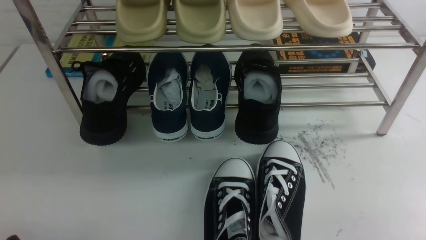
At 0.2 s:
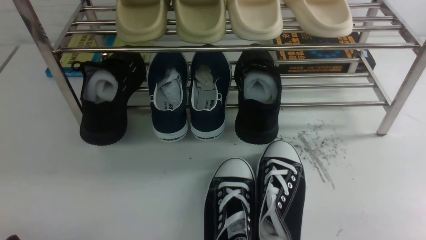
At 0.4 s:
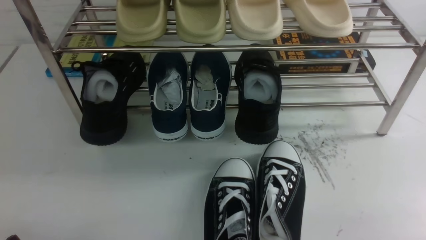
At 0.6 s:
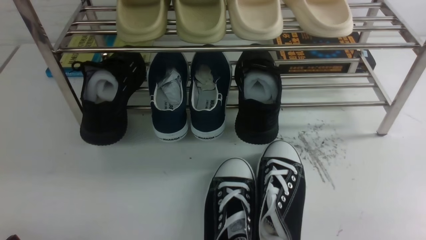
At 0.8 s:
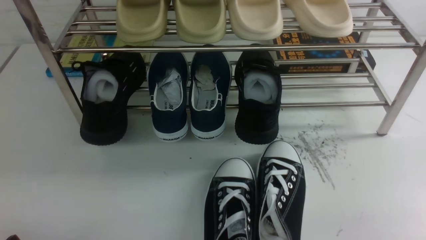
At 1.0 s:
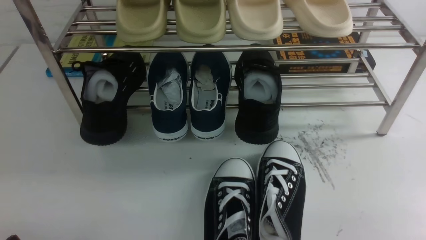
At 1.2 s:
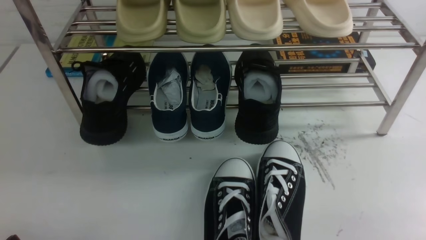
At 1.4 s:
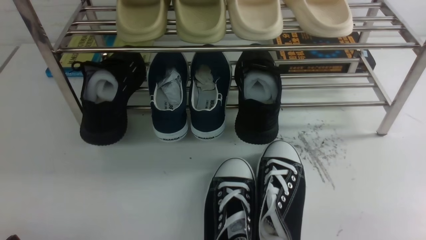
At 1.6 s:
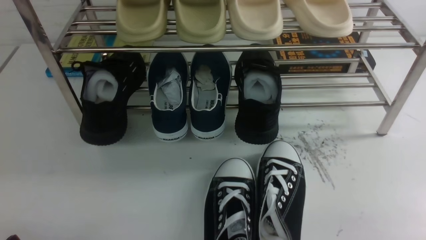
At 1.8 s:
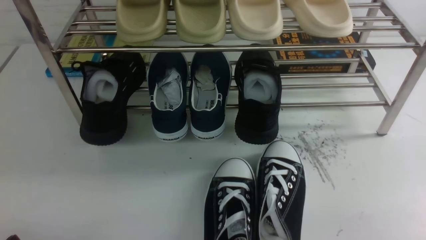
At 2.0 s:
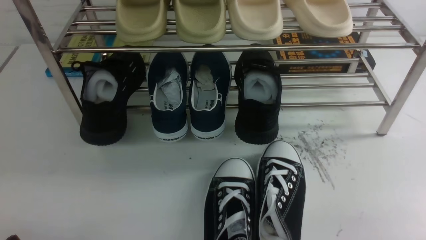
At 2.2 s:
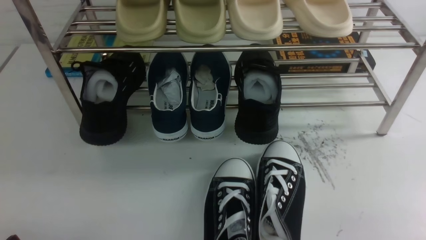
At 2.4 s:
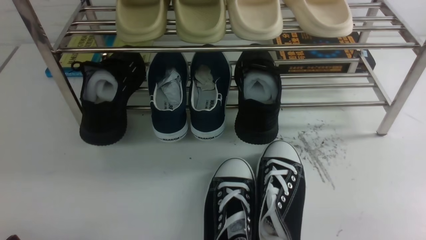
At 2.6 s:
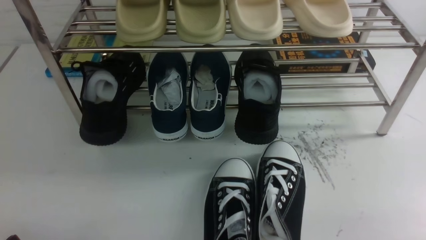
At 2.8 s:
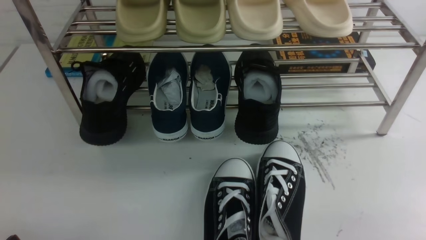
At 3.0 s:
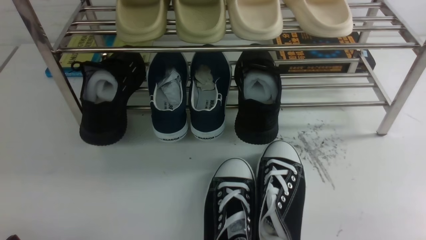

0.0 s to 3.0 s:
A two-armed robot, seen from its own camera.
0.0 to 3.0 s: The two grippers keep their place.

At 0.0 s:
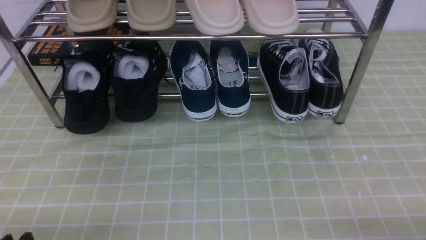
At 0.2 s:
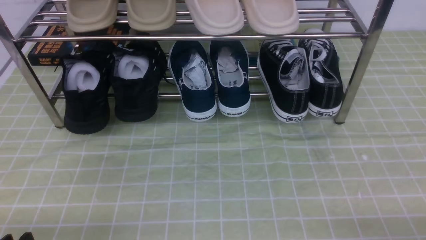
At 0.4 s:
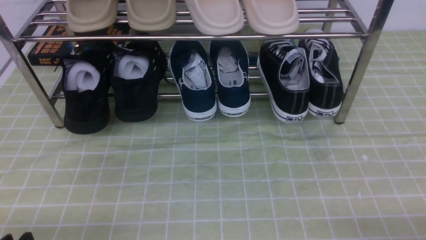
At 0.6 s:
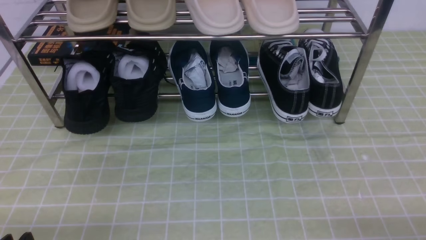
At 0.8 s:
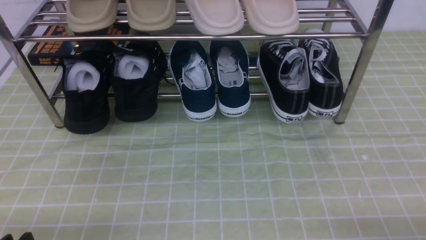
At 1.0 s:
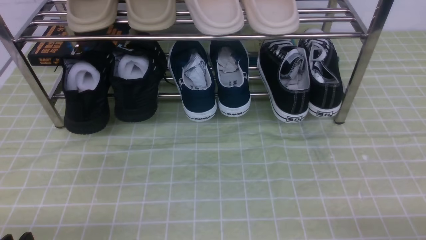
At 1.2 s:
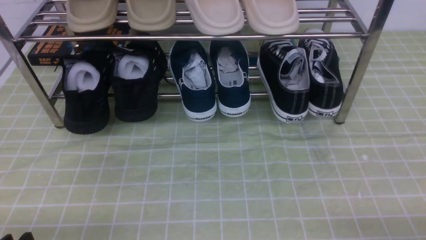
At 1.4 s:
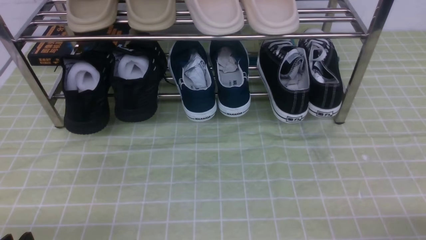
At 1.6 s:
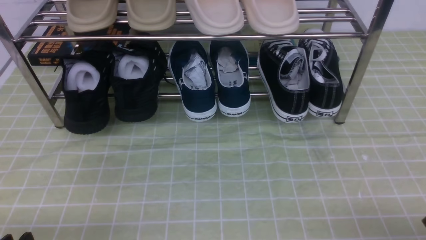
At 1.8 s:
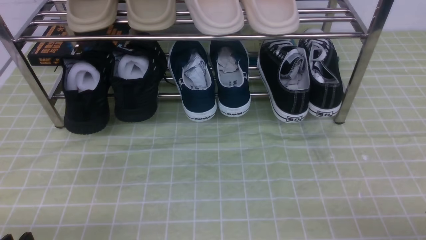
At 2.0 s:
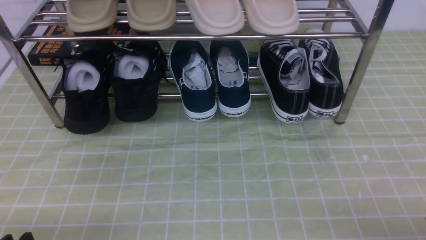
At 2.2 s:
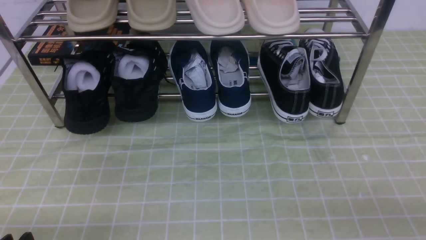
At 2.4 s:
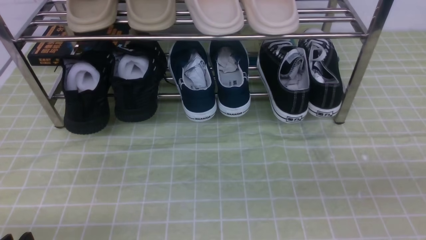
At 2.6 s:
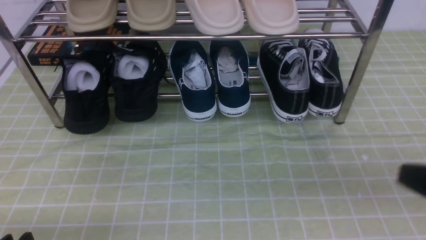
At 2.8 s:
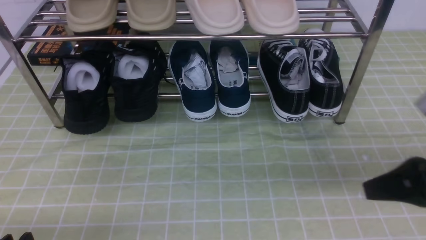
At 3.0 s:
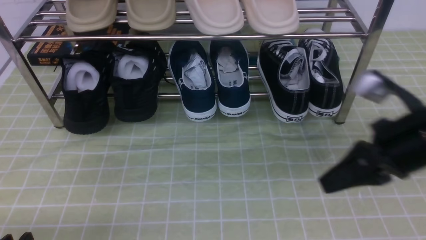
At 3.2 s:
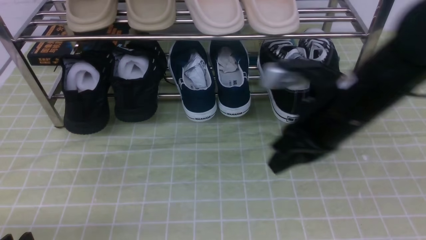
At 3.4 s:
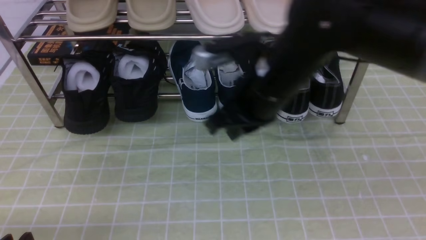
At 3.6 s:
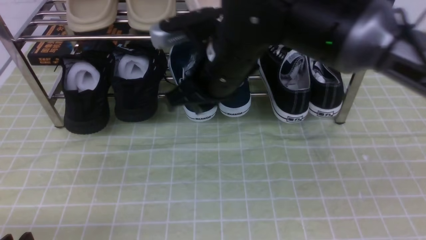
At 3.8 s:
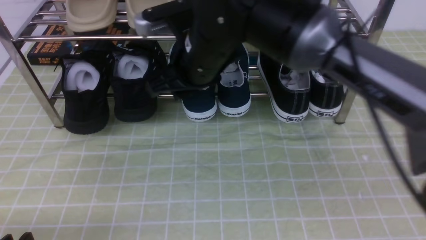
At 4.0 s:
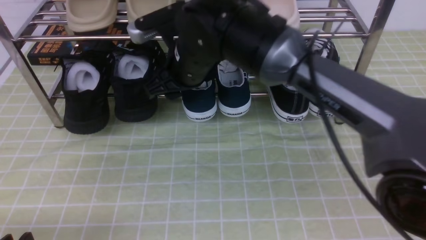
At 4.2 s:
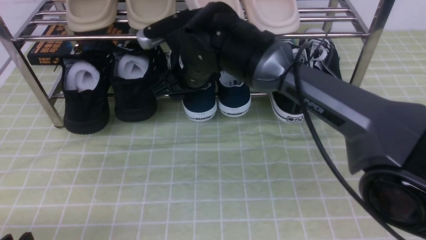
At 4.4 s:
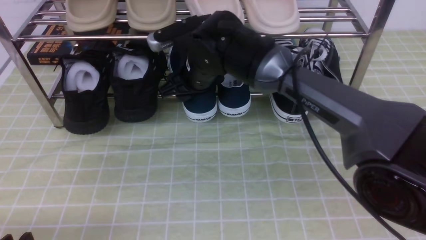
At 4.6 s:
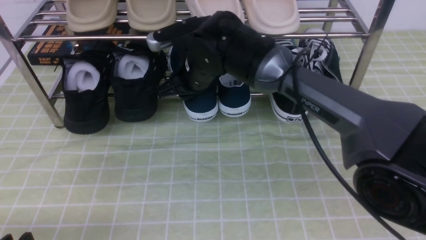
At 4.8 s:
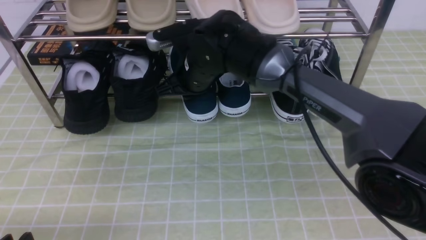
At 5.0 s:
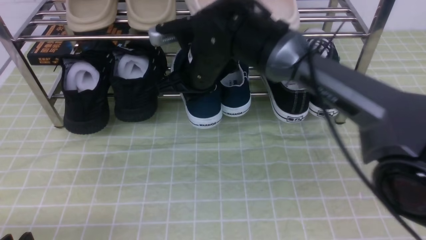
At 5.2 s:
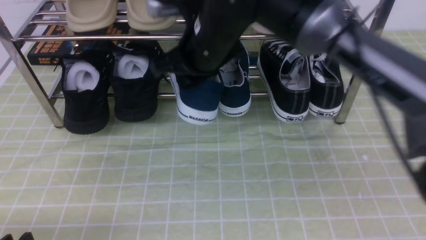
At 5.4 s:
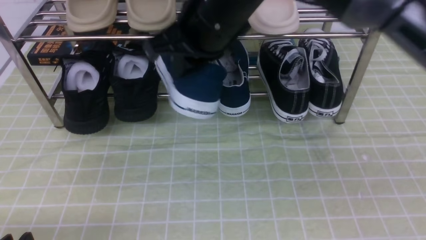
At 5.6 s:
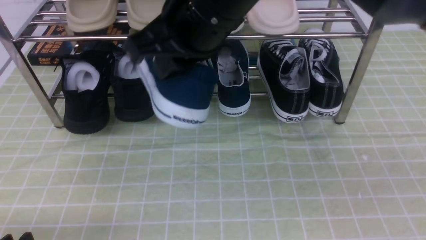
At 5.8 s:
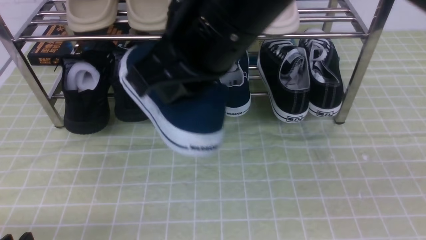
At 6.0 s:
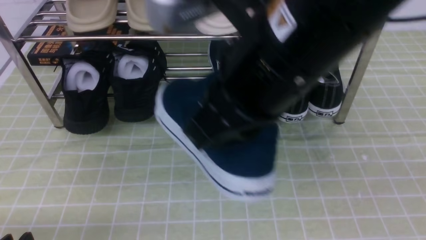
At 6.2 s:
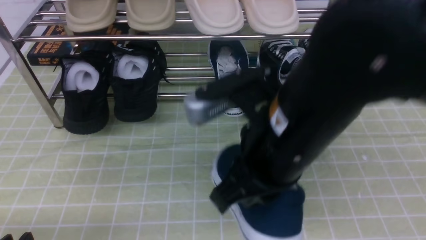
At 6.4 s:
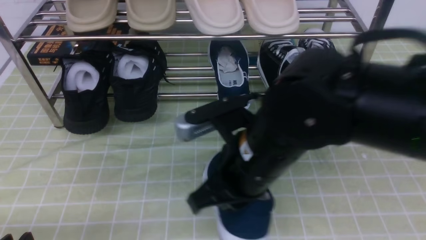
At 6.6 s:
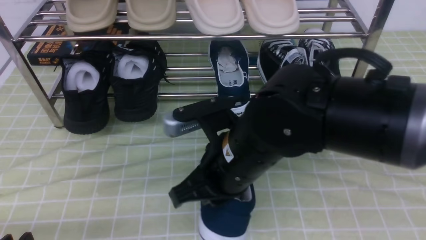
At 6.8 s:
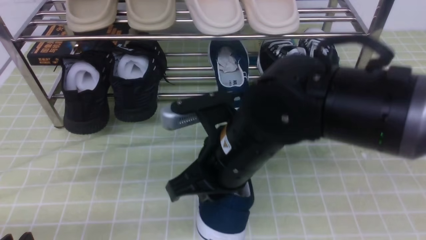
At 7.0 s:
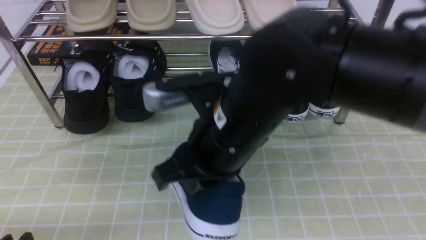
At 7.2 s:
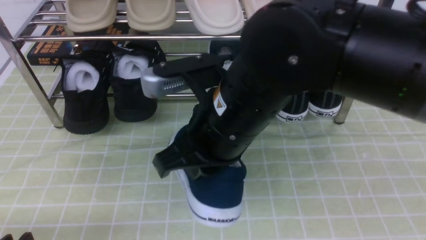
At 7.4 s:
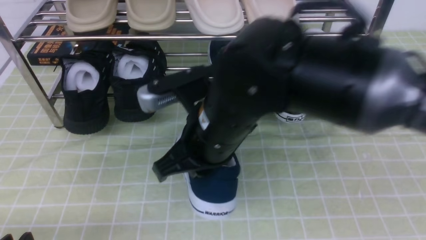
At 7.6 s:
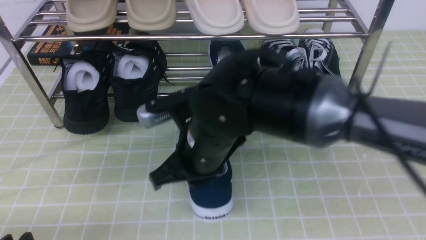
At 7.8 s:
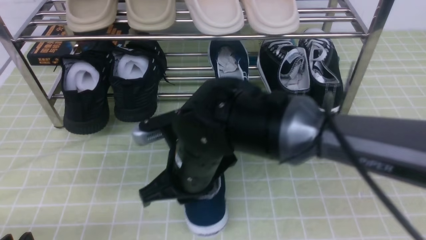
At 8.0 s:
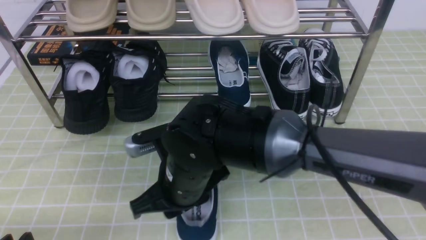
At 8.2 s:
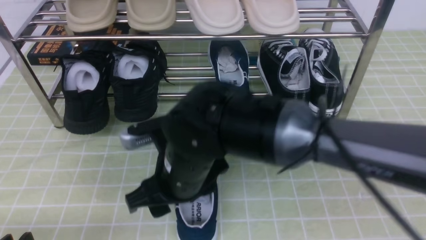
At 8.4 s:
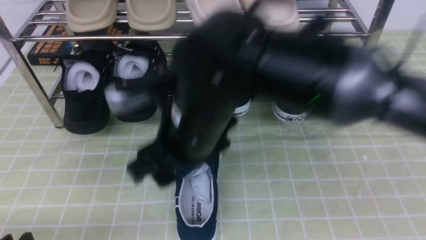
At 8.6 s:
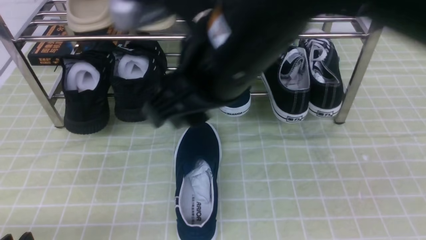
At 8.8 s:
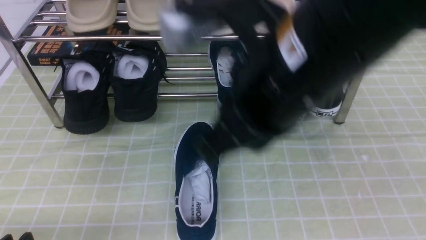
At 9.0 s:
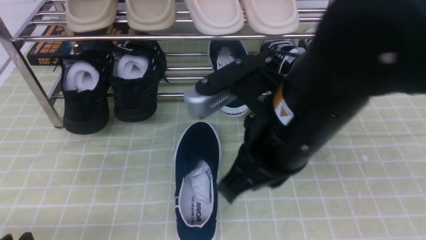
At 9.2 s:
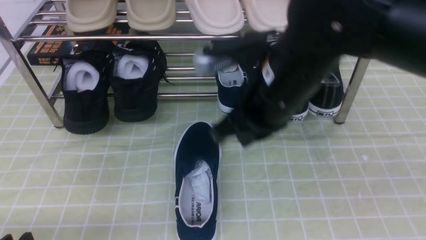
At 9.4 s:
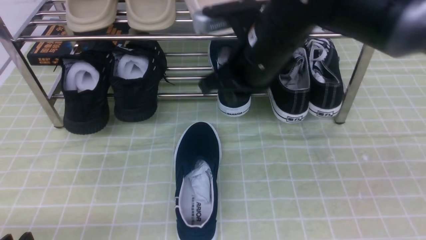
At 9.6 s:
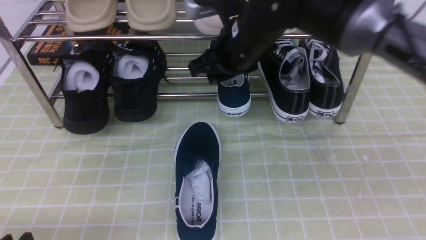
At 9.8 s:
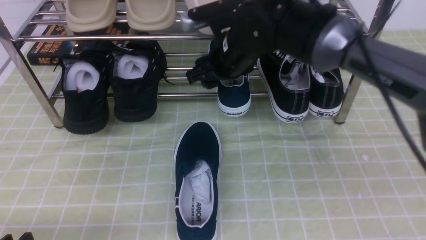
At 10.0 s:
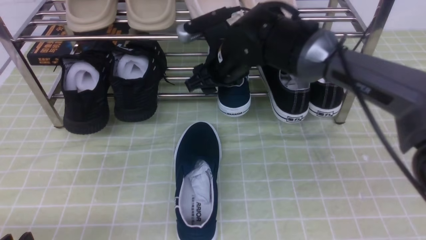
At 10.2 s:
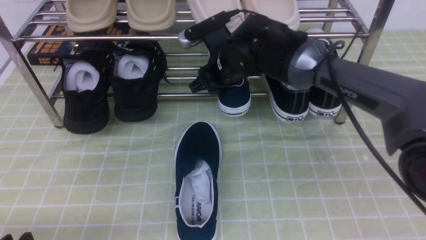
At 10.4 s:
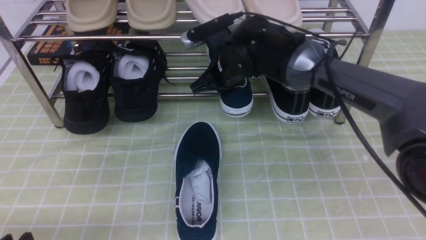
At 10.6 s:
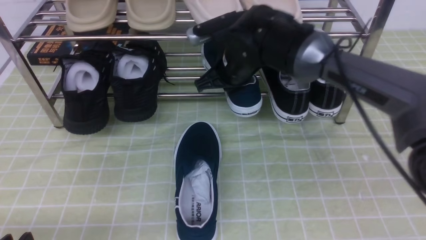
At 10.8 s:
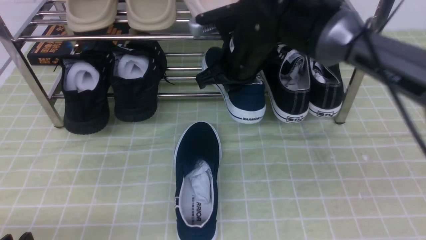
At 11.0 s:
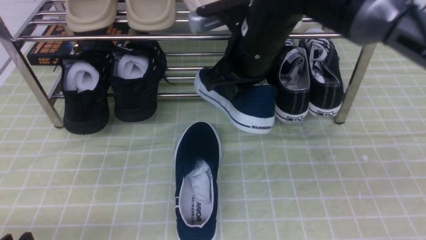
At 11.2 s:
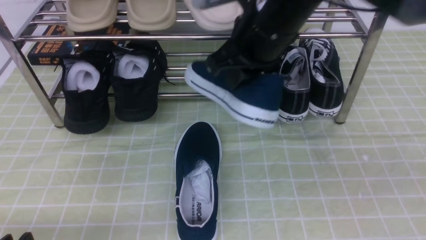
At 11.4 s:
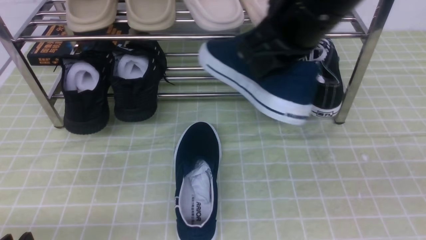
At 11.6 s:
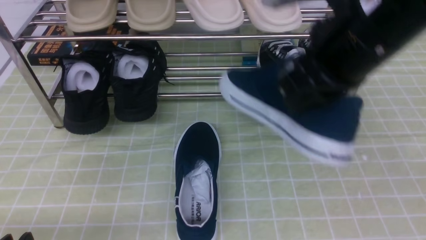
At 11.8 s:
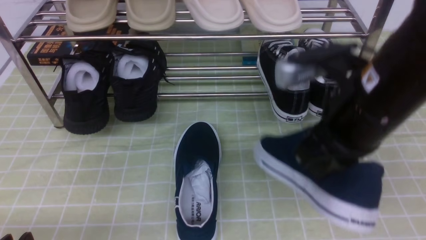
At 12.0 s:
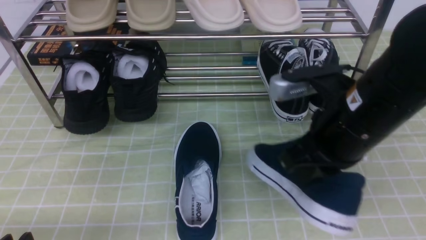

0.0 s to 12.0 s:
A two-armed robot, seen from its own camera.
1.6 to 3.0 s: The right gripper travels forward, upward and to the left by some 25 cm, and closes up.
3.0 to 4.4 s: The right gripper travels to the left and forward by approximately 30 cm, and opens.
4.4 to 6.0 s: The right gripper goes roughly 25 cm backward and upward, and closes up.
6.0 to 7.6 s: The right gripper moves up and down over roughly 15 cm, changing direction 2 times.
7.6 to 9.0 s: The right gripper travels upward and to the right by some 15 cm, and opens, then closes again.
9.0 to 10.4 s: The right gripper goes some 25 cm forward and downward, and opens, then closes again.
10.4 to 12.0 s: The right gripper is displaced backward and to the right by some 20 cm.

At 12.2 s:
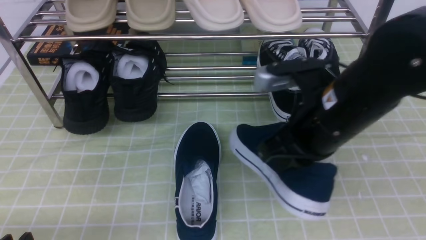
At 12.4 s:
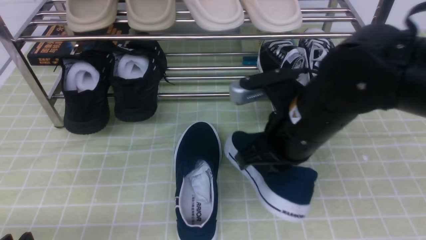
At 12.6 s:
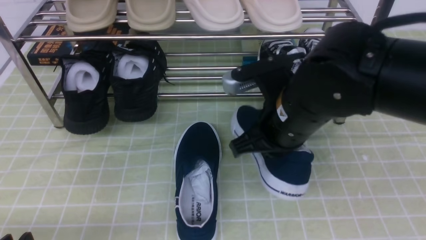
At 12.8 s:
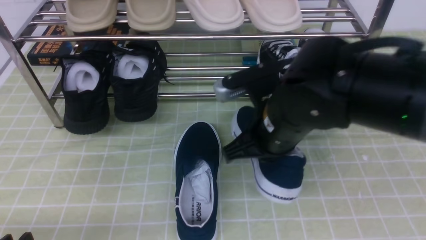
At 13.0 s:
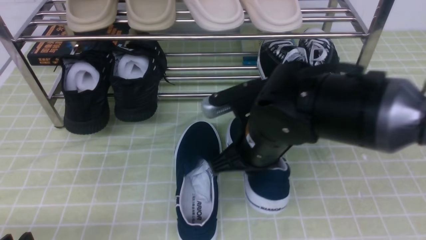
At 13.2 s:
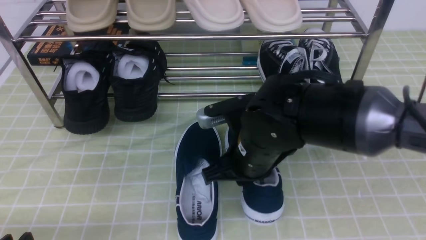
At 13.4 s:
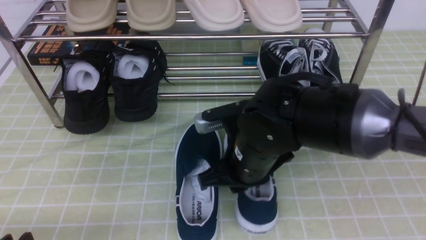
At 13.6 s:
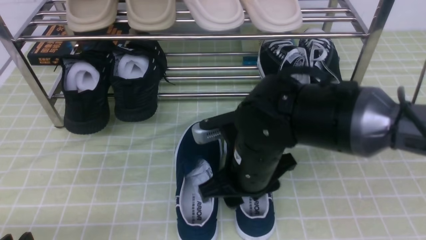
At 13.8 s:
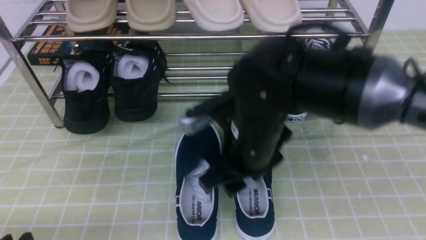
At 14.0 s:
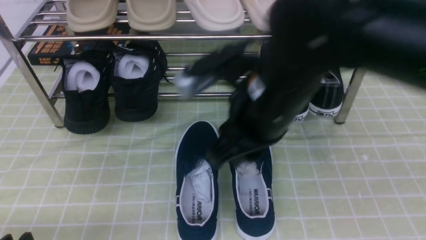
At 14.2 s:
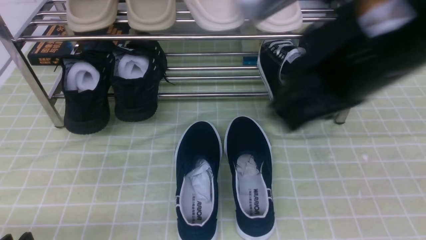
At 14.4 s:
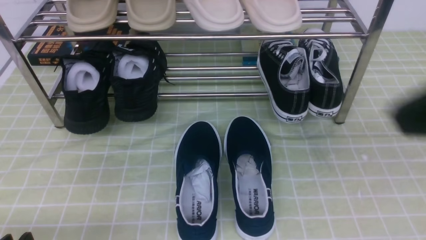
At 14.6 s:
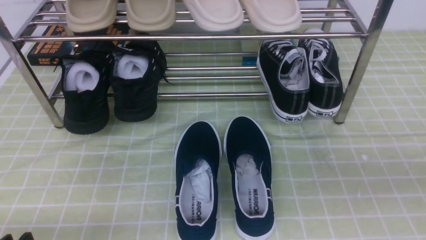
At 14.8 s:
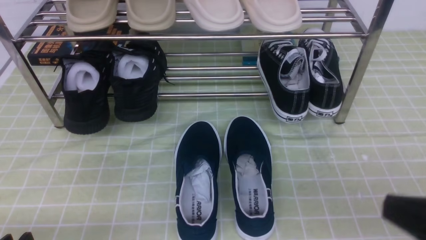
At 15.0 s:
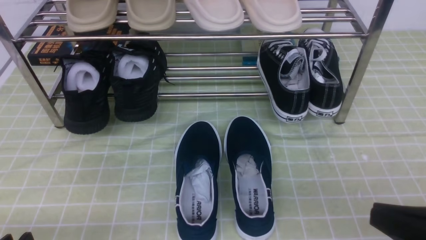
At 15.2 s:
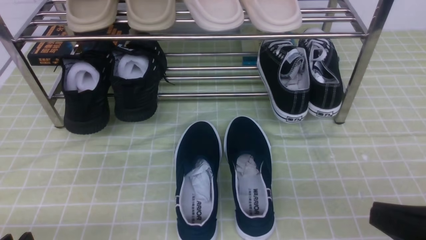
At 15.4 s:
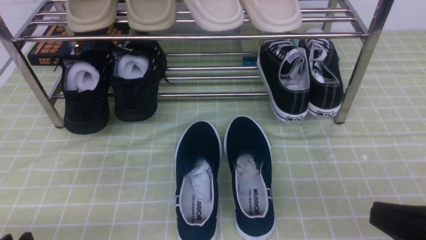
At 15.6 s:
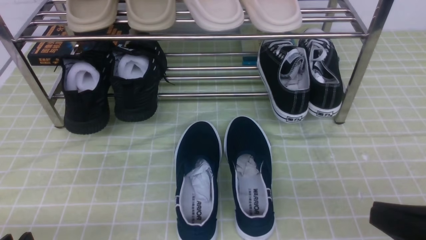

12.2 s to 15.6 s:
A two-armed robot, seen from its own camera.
12.2 to 13.8 s: The right gripper heads to the left, covering roughly 5 cm, and opens.
13.8 to 15.6 s: The right gripper travels to the right and backward by some 25 cm, and closes up.
